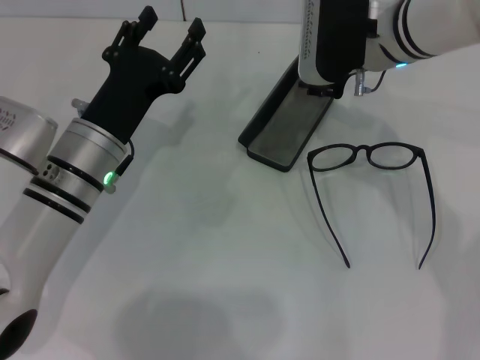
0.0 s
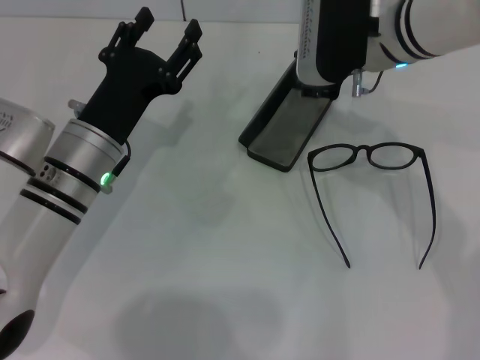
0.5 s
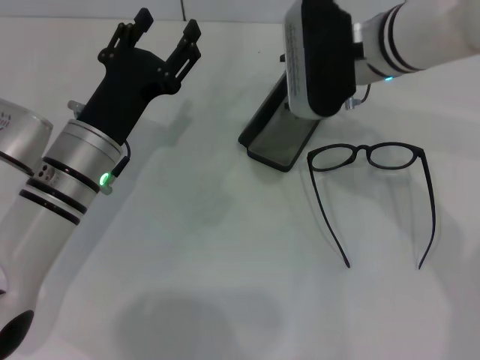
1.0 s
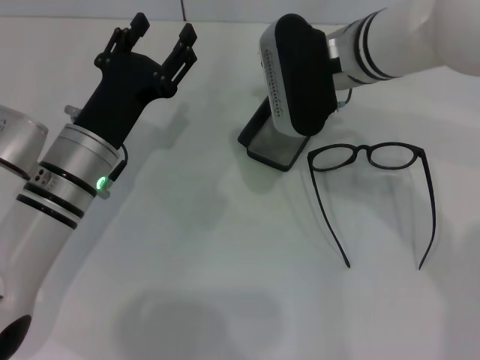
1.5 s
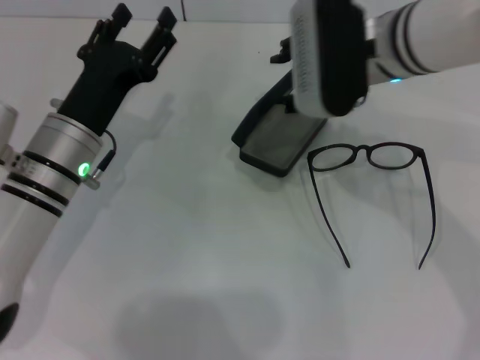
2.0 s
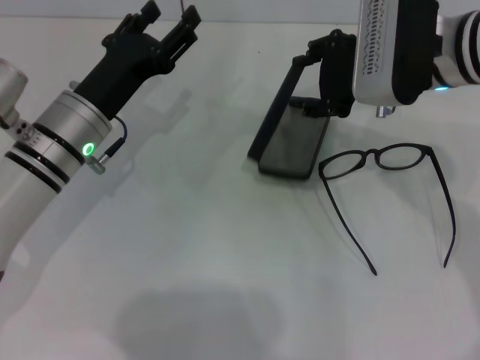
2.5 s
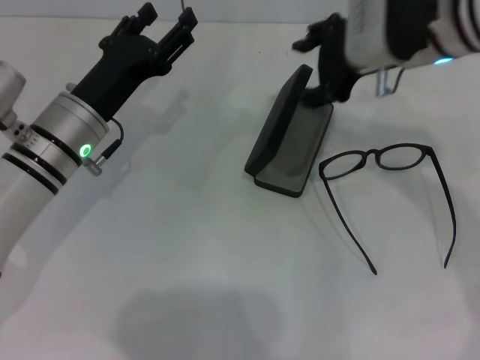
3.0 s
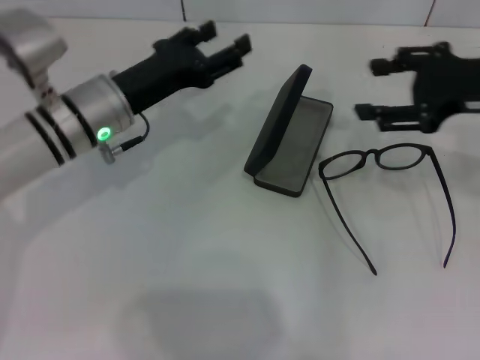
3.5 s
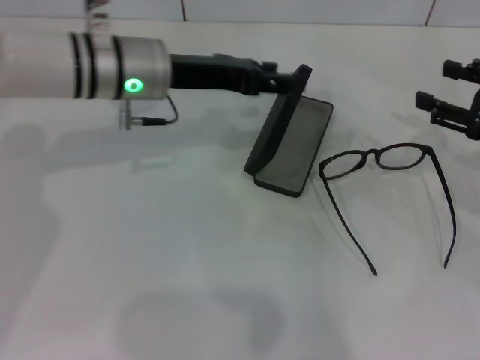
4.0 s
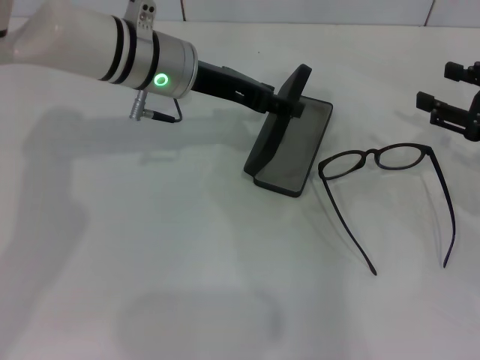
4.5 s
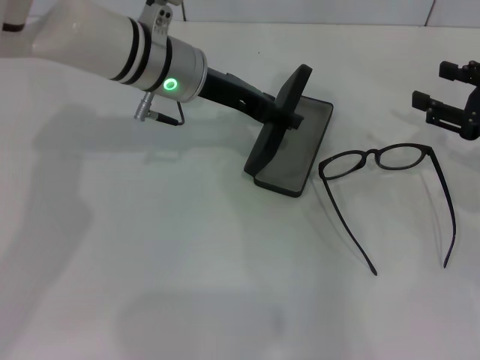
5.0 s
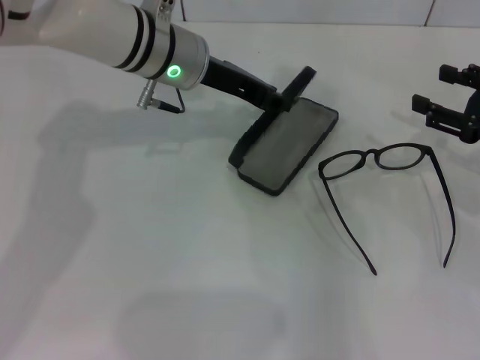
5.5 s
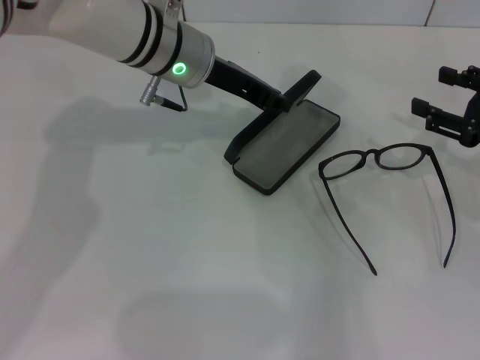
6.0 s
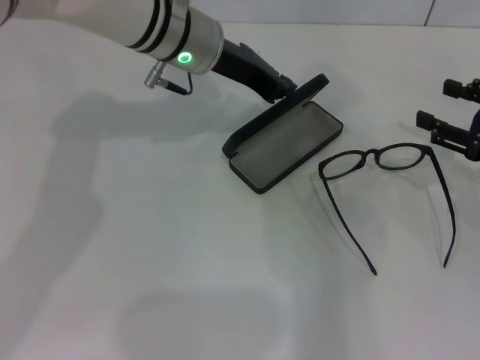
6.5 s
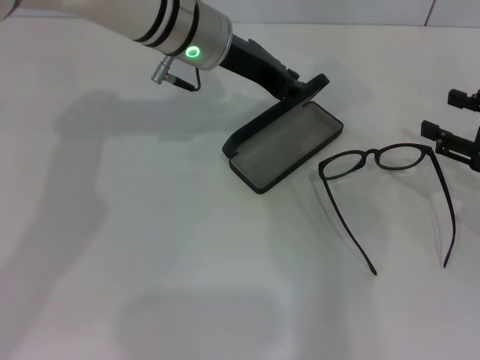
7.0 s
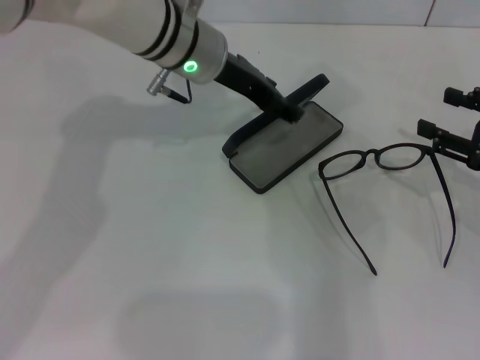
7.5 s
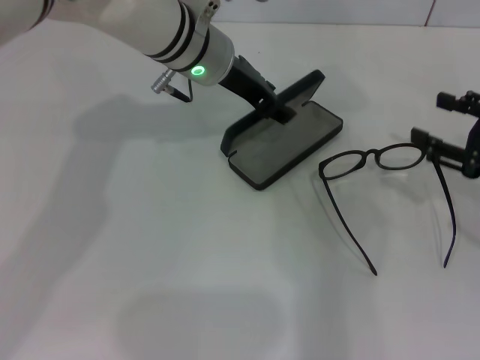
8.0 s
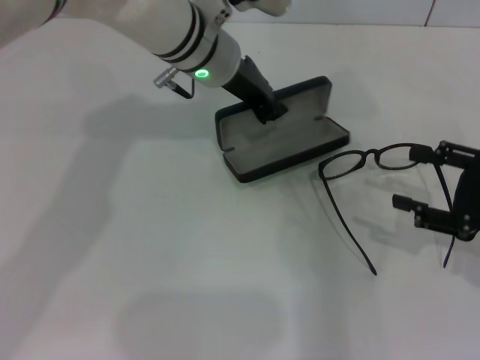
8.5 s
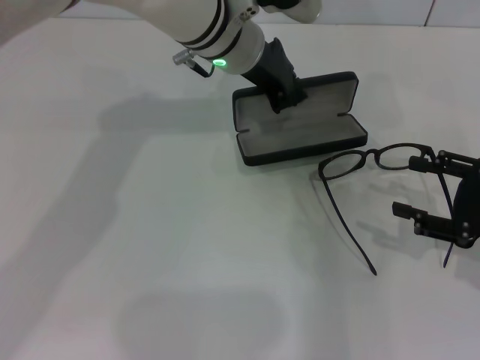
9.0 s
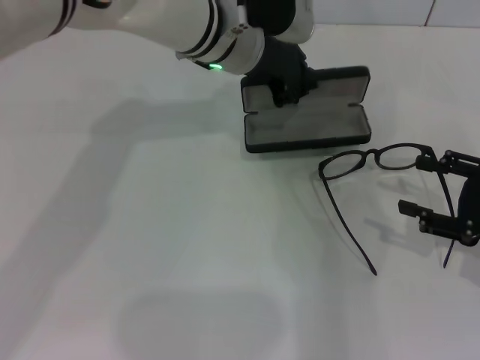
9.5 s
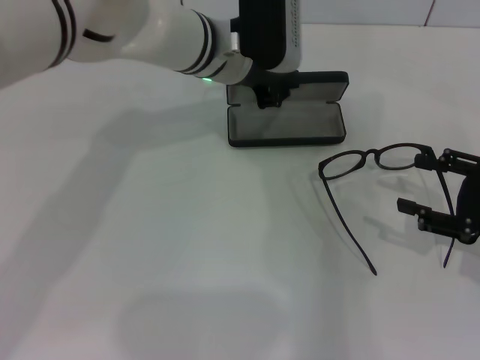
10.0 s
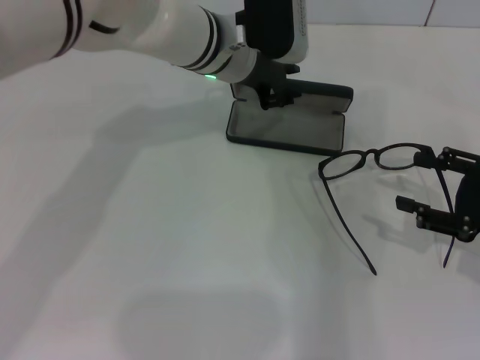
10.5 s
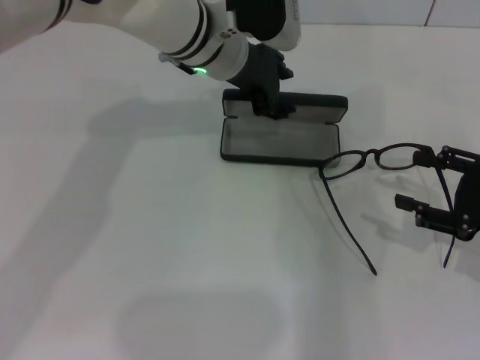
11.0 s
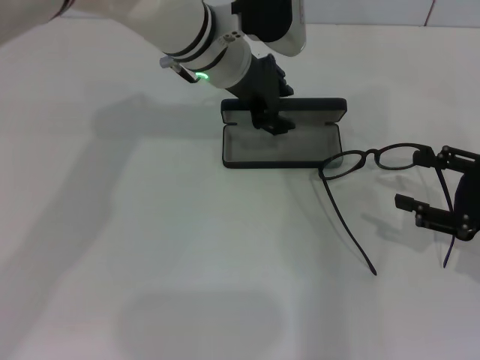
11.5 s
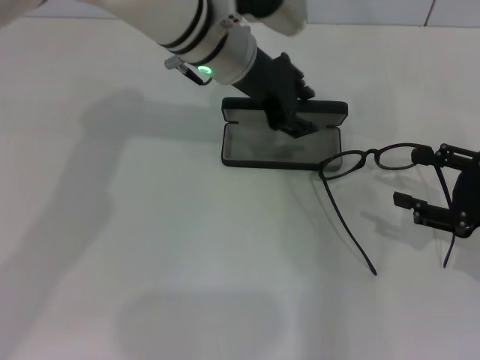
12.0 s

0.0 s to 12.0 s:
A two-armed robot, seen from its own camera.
Step, 0.0 to 8.0 s: Grab the glasses case with your left hand.
Step, 8.5 to 11.5 s: Place the glasses case in the center of the table with your left hand.
0.0 to 2.0 s: There are only small adjustments of the grippers.
2.0 to 4.0 s: The right gripper heads to the right, covering approximately 20 cm; the left gripper goes some 15 cm forward, upward and to the right.
4.0 to 6.0 s: The left gripper shifts by some 5 cm, and closes.
6.0 to 8.0 s: The left gripper opens its fingers.
8.0 to 10.0 s: The left gripper closes up.
10.0 to 12.0 s: The left gripper opens its fingers.

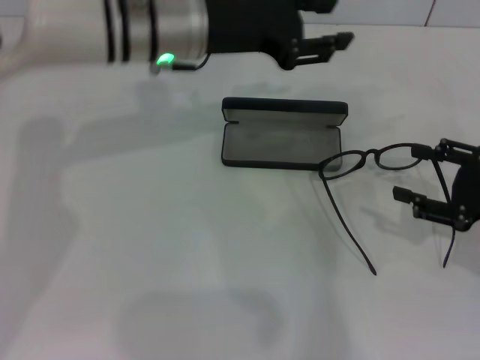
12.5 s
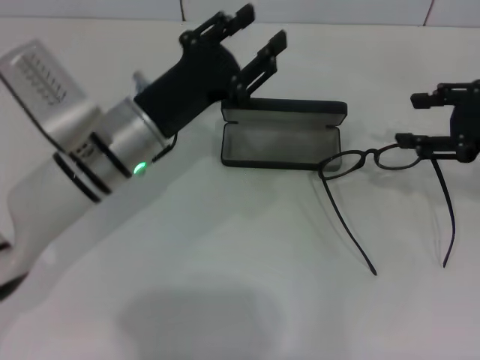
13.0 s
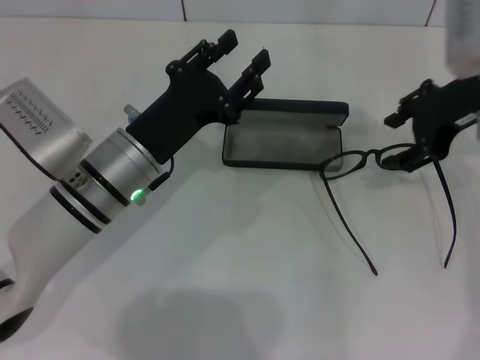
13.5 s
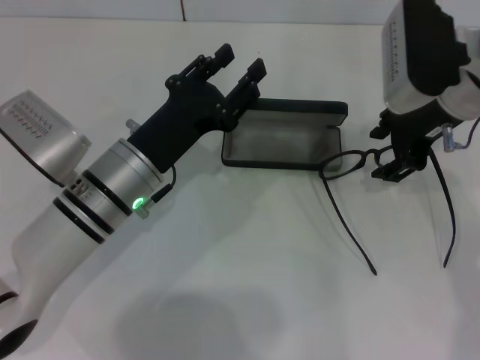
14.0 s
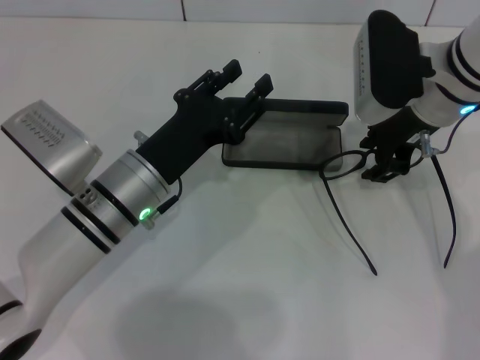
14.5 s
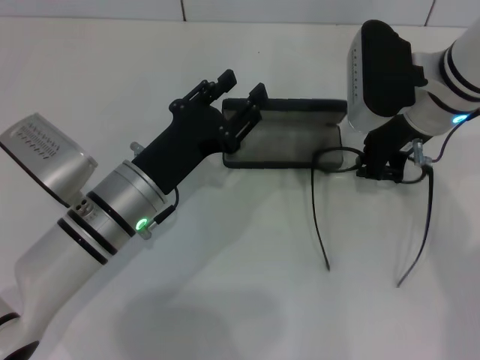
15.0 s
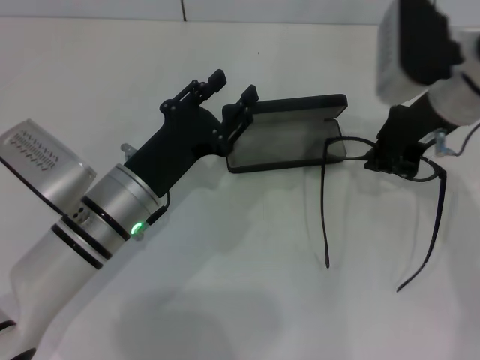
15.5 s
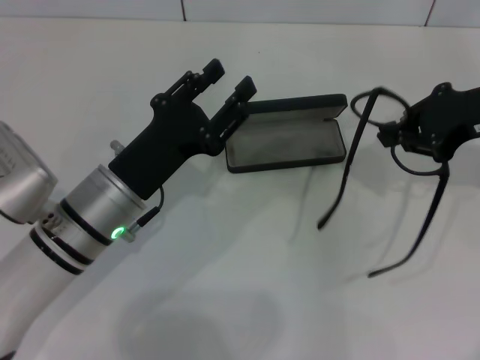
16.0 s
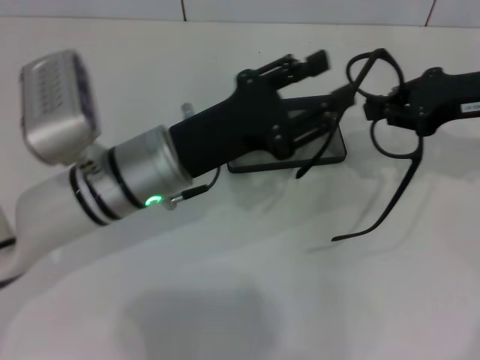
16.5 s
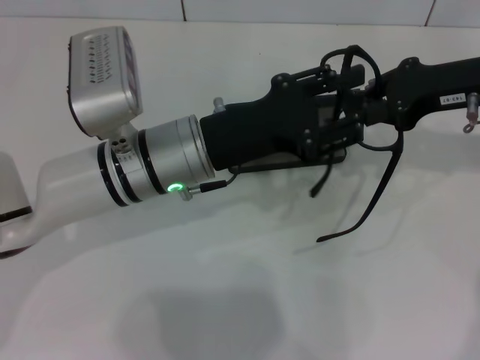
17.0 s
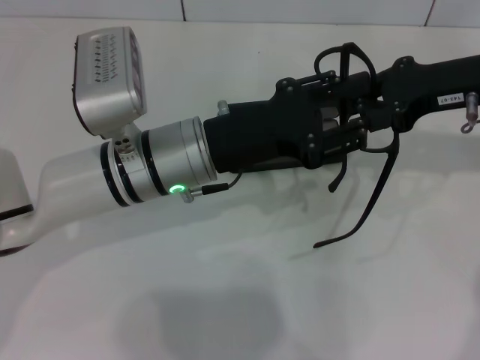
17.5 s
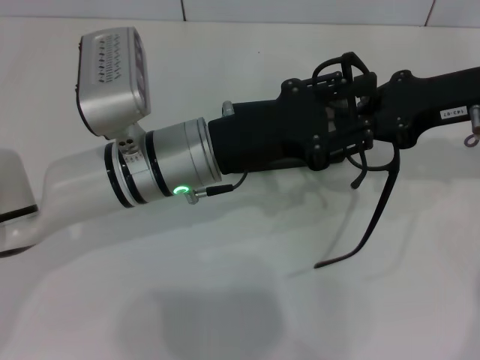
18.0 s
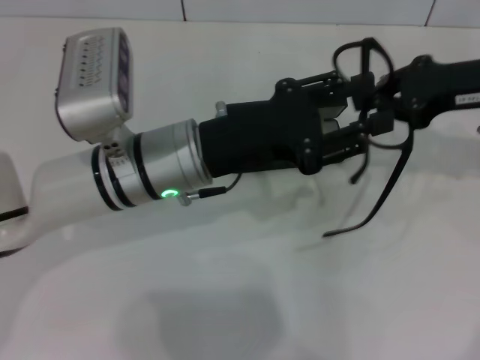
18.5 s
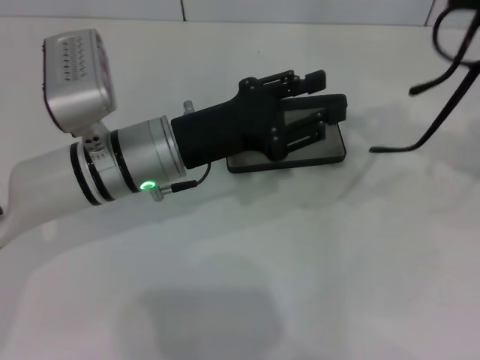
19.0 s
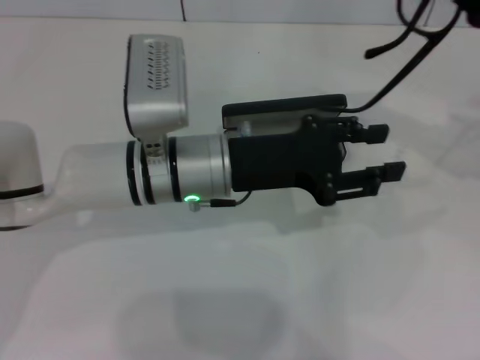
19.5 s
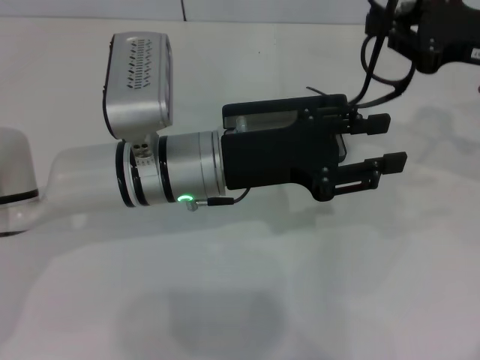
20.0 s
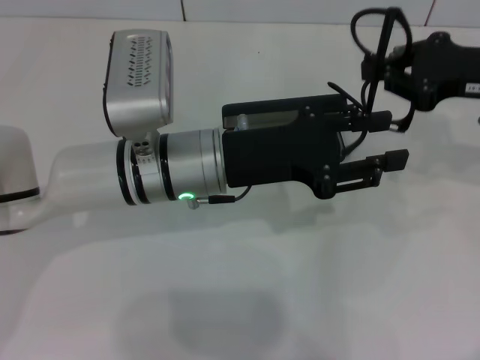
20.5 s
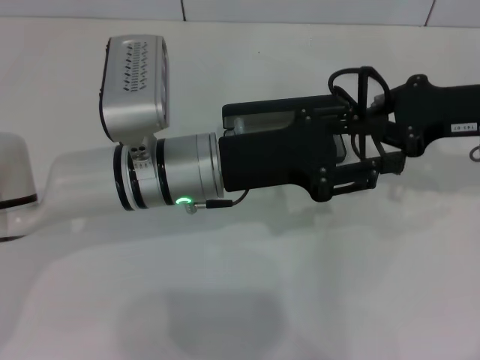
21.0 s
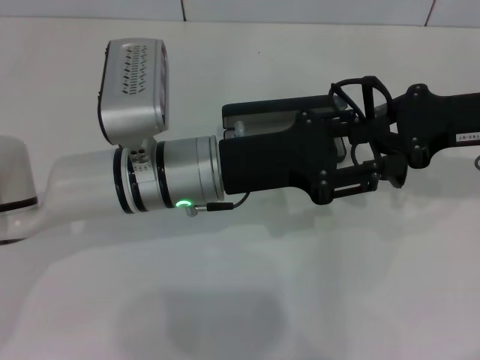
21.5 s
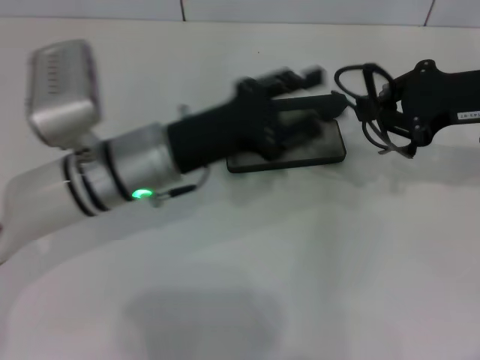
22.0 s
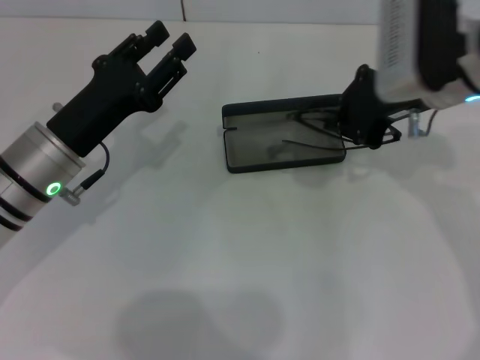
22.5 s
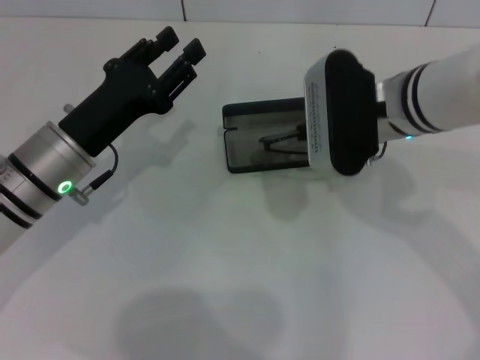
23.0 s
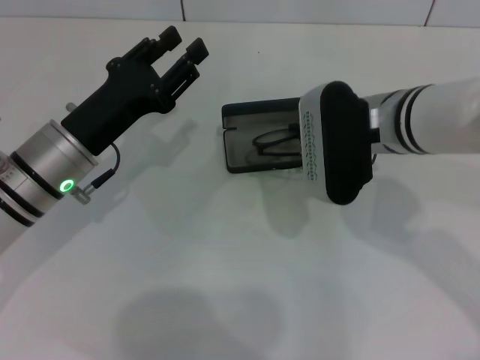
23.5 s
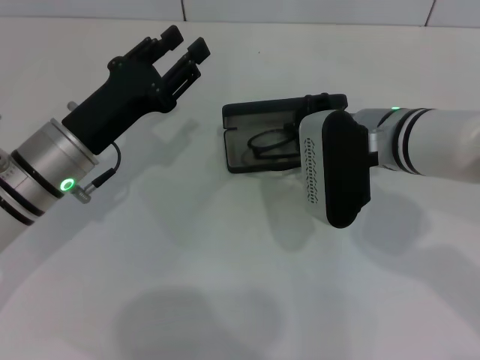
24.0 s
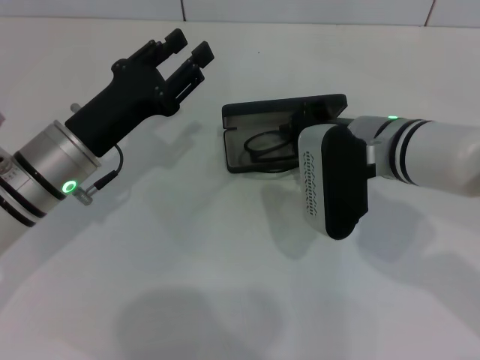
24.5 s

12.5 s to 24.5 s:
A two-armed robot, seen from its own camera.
Step, 12.5 to 15.0 s: Grab the eyeglass frame with your right hand.
Step, 15.5 to 21.0 s: Fold the frame with your left hand.
12.5 to 14.5 s: The left gripper moves backward and downward, approximately 15 cm, while the right gripper shifts approximately 20 cm to the left, forward and upward.
14.5 to 16.5 s: The right gripper moves to the right, some 10 cm, and closes its fingers; the left gripper moves some 5 cm.
20.5 to 22.5 s: The grippers both shift to the left by some 10 cm.
22.5 to 24.5 s: The right gripper travels downward by roughly 10 cm.

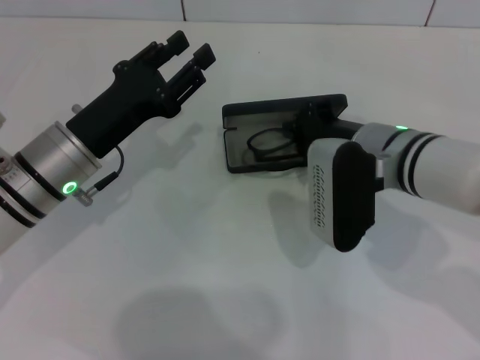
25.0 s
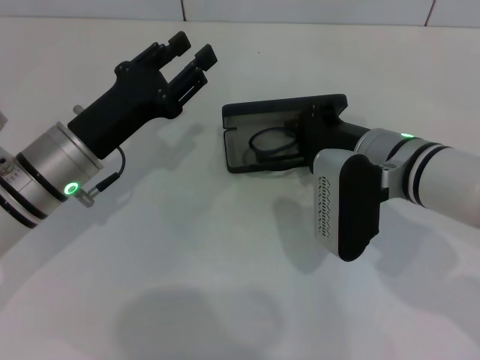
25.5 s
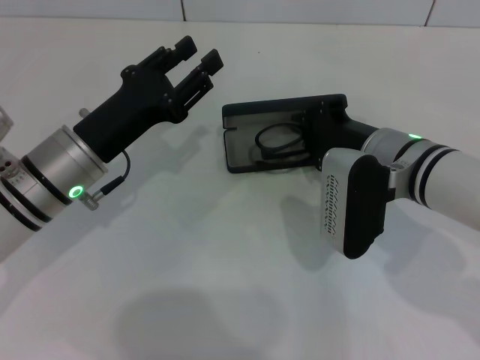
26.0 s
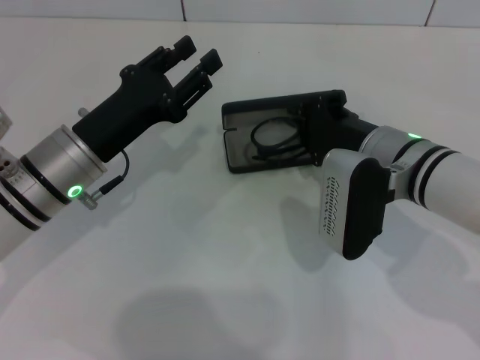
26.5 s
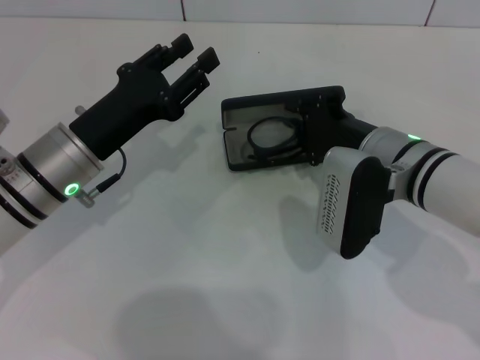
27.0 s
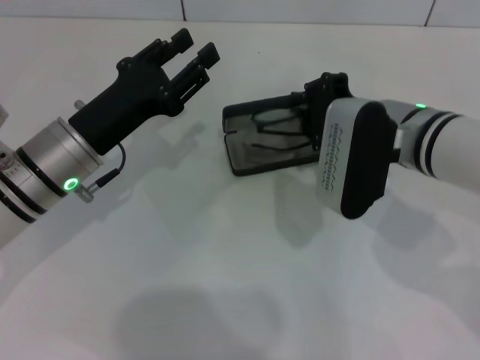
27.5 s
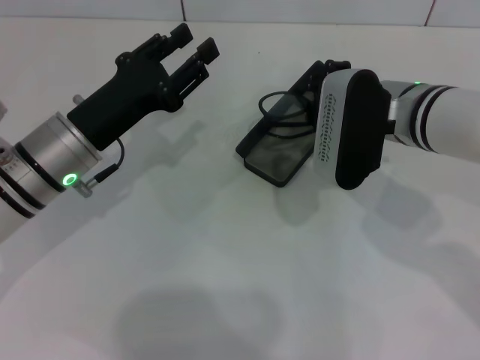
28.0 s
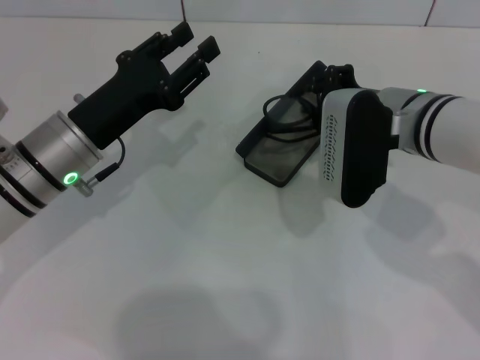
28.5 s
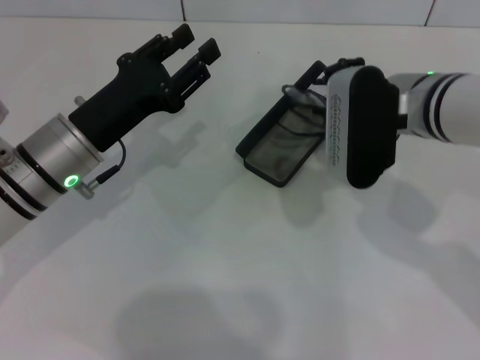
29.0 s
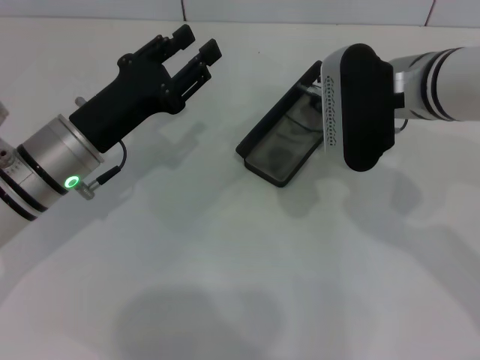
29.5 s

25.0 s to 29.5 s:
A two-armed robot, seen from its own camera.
25.0 to 27.0 s: There are only small adjustments of the grippers.
27.0 to 29.5 s: The right gripper shifts some 10 cm upward.
